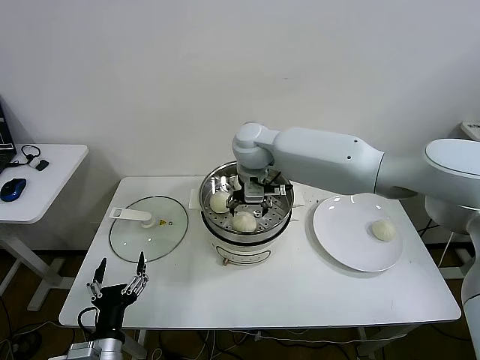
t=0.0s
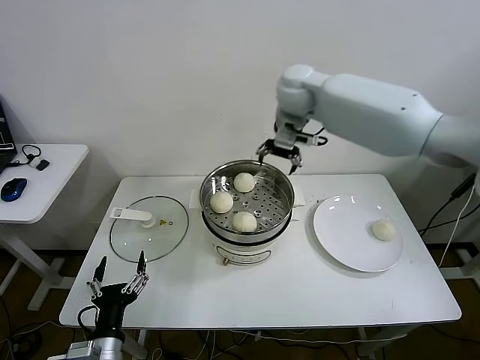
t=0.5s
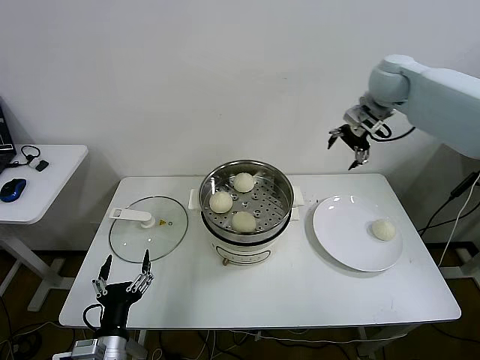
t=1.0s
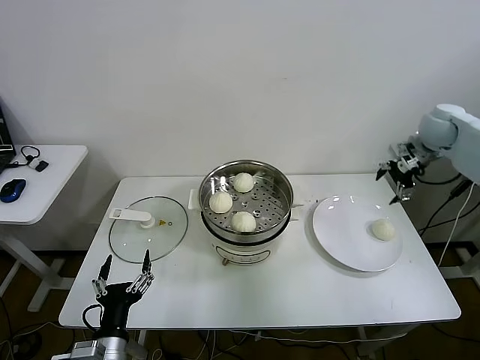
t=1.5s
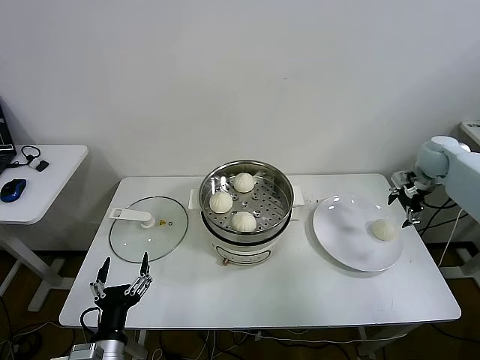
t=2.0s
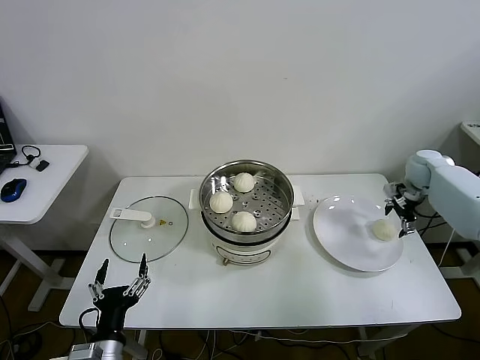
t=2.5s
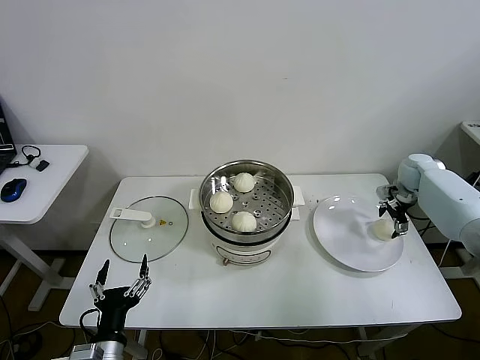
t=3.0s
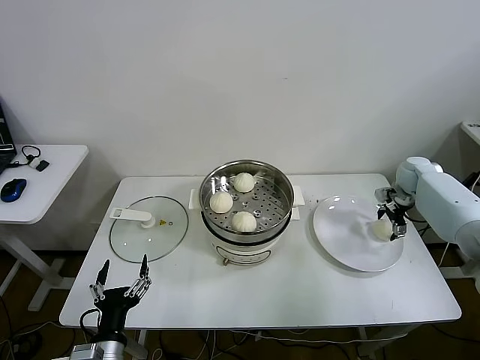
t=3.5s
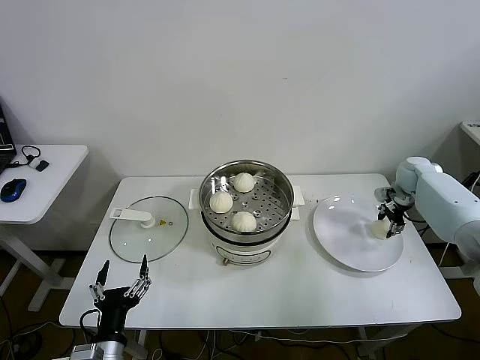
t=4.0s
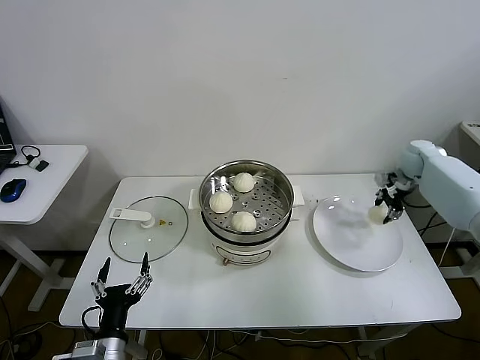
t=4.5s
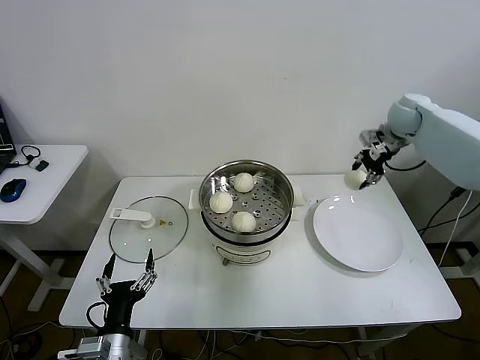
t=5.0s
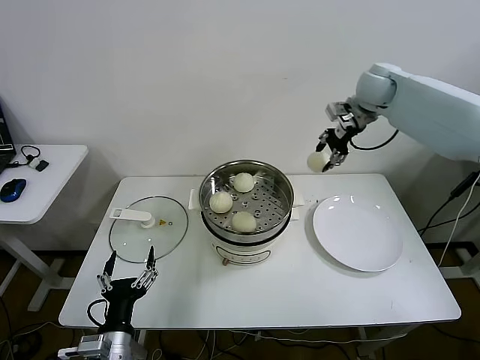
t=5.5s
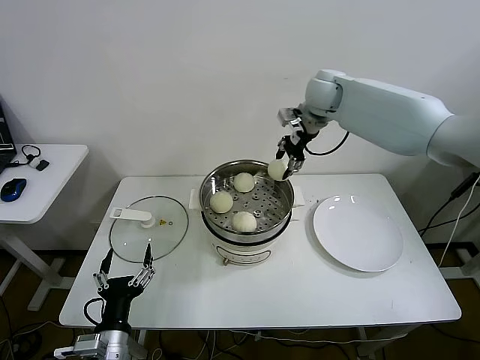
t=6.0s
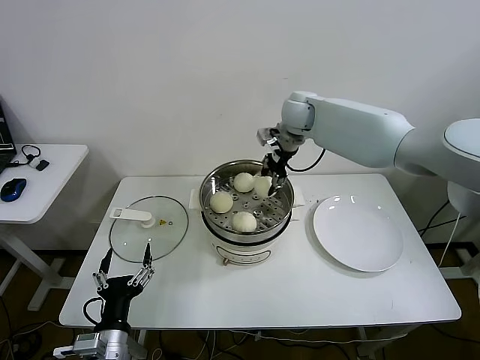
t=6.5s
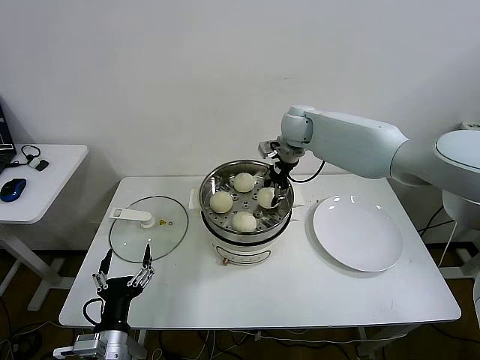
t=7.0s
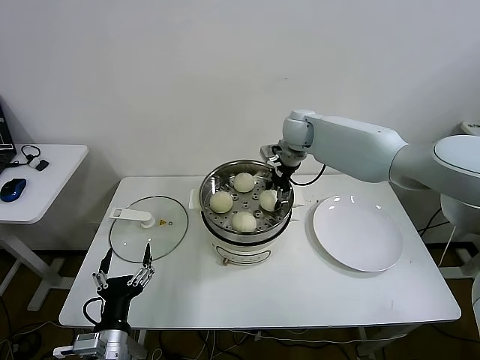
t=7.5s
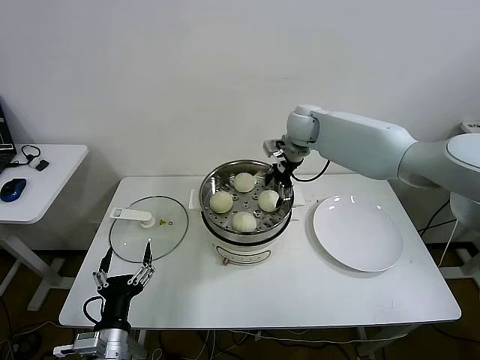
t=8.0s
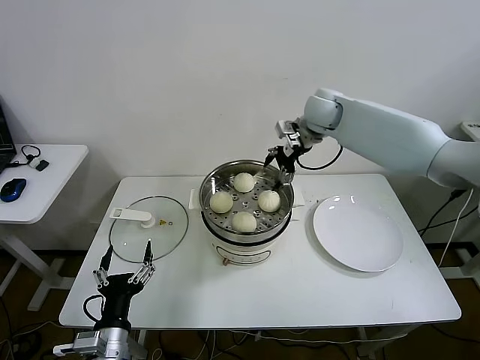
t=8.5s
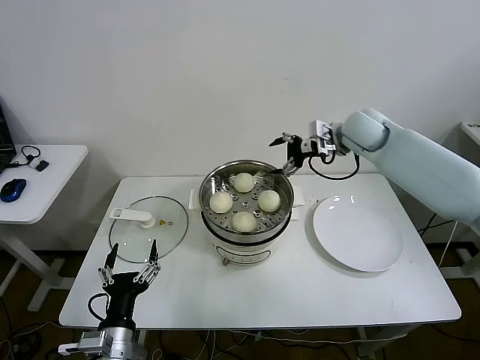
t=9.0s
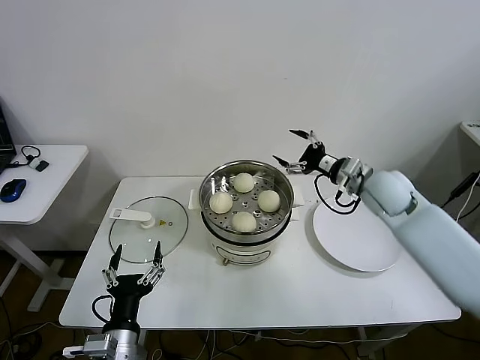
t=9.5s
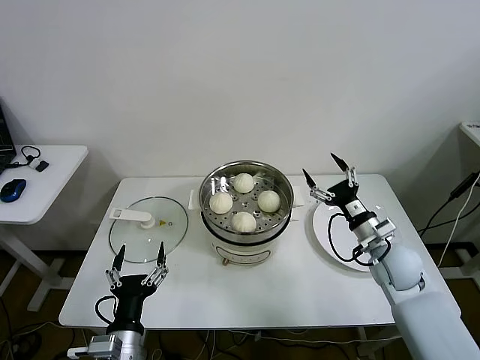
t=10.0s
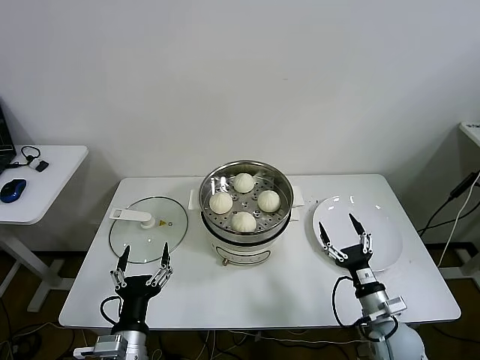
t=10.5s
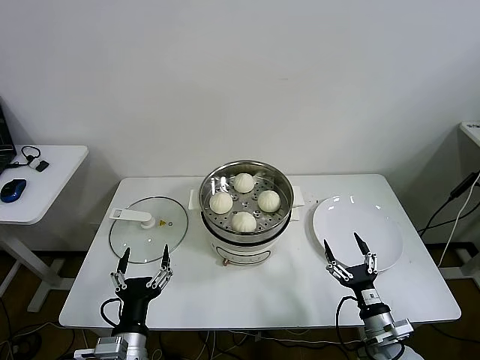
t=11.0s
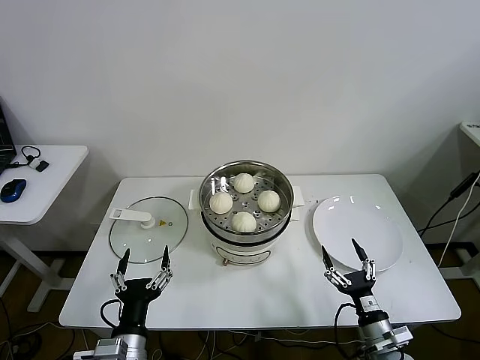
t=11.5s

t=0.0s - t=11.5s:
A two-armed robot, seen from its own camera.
Step, t=0.0s - t=3.5s: Grasp the baozi in the plate with right gripper.
Step, t=4.0s - t=8.0s: Place the baozi on the steamer with right gripper.
t=0.0s - t=2.0s: The right gripper travels to the right by roughly 50 cm.
t=2.0s - t=4.0s: The right gripper travels downward by roughly 10 cm, and closes up.
t=4.0s - t=6.0s: The right gripper goes approximately 35 cm to the left and upward.
t=6.0s - t=7.5s: The right gripper is displaced downward by roughly 10 cm.
t=7.5s - t=9.5s: The right gripper travels backward and to the right by some 20 cm, and opens up.
t=9.5s - t=11.5s: The right gripper heads backward and downward, covering about 40 cm.

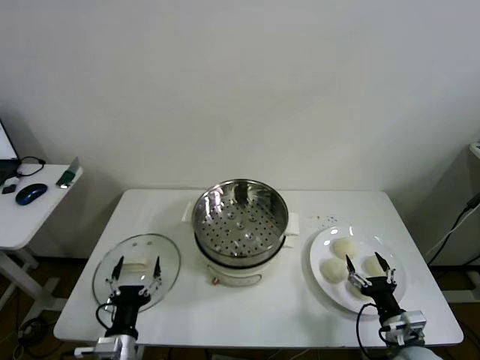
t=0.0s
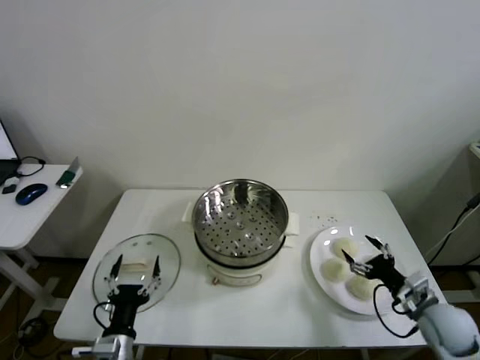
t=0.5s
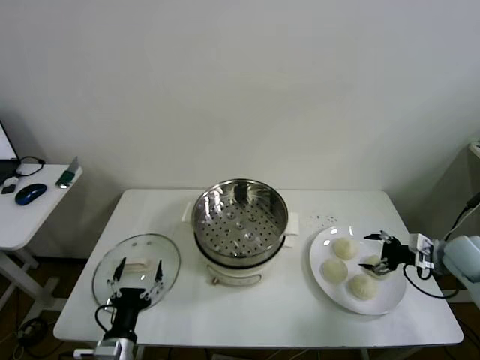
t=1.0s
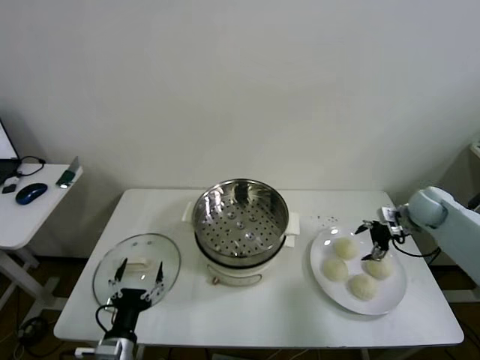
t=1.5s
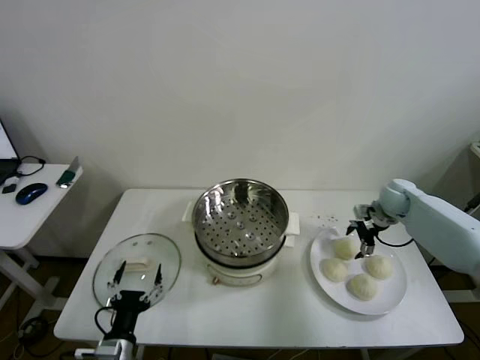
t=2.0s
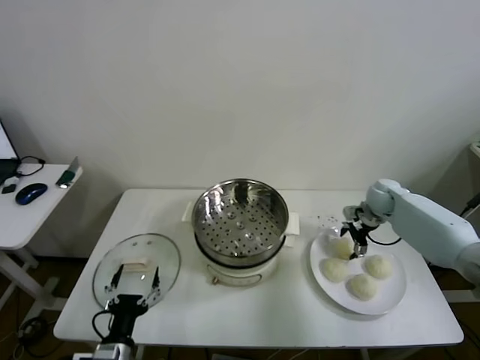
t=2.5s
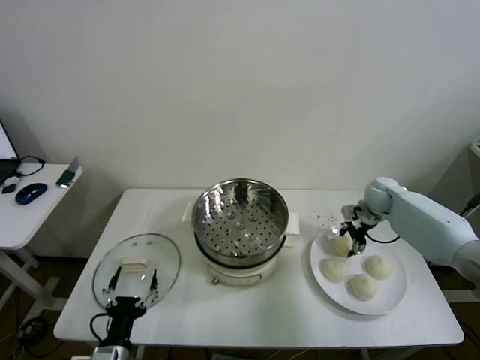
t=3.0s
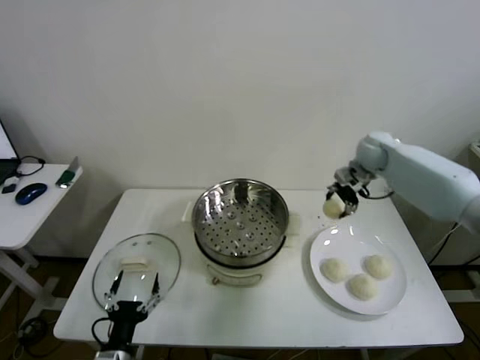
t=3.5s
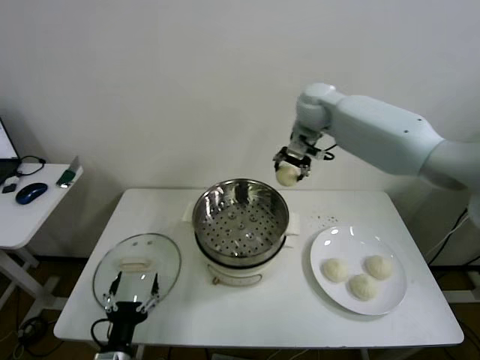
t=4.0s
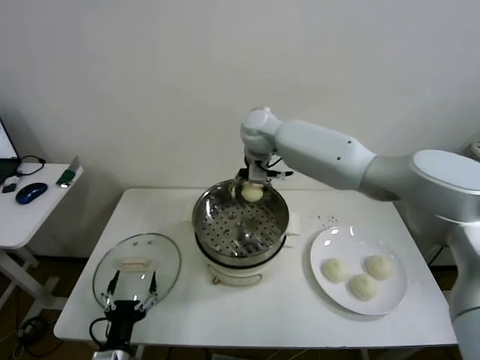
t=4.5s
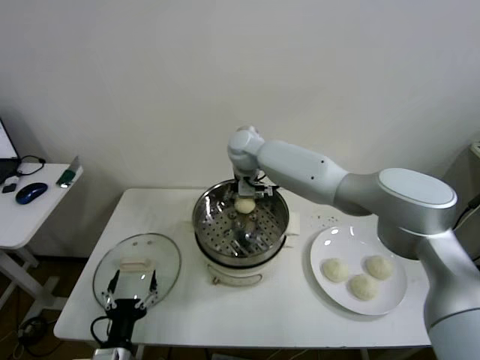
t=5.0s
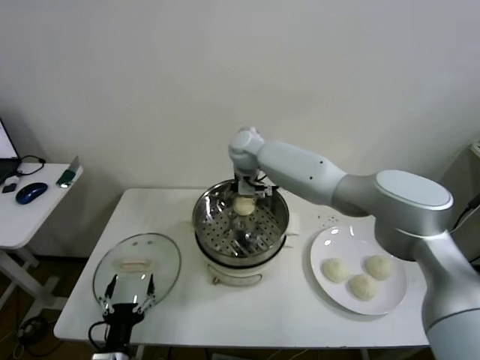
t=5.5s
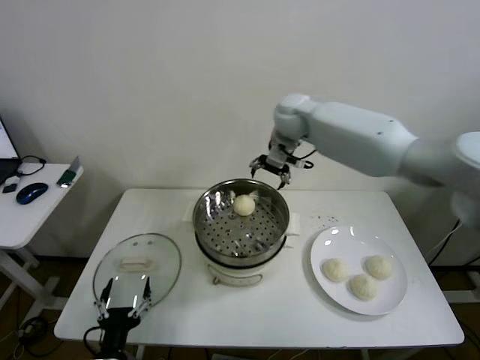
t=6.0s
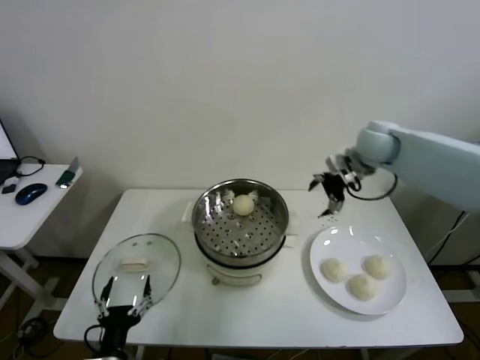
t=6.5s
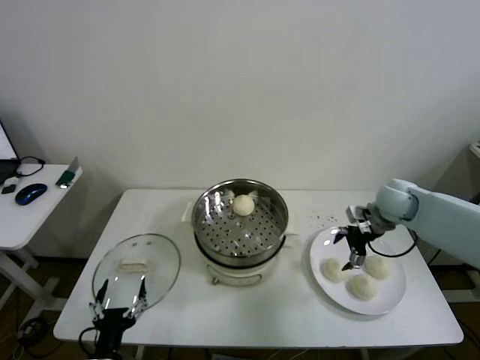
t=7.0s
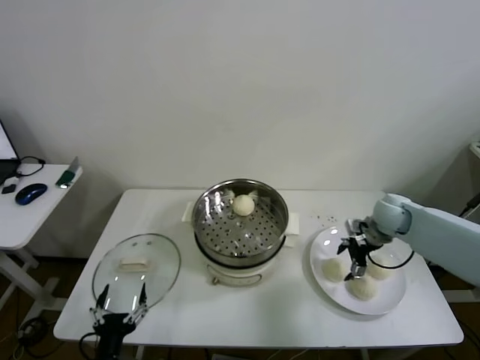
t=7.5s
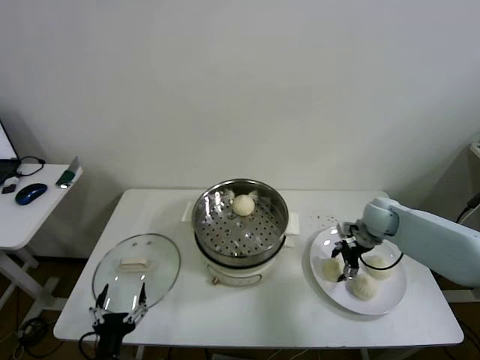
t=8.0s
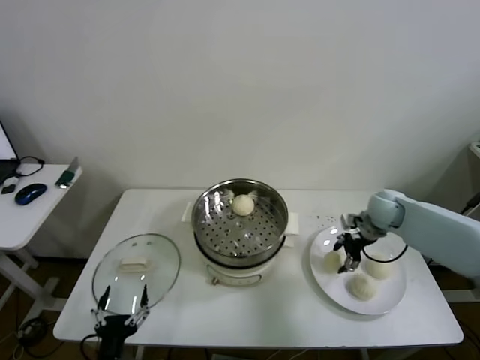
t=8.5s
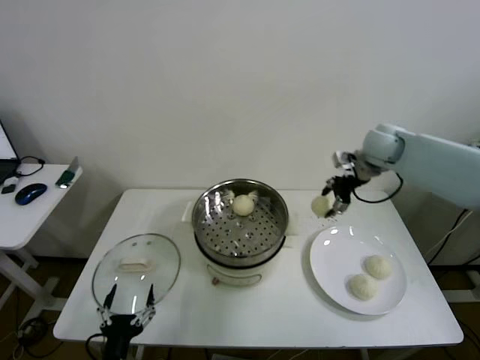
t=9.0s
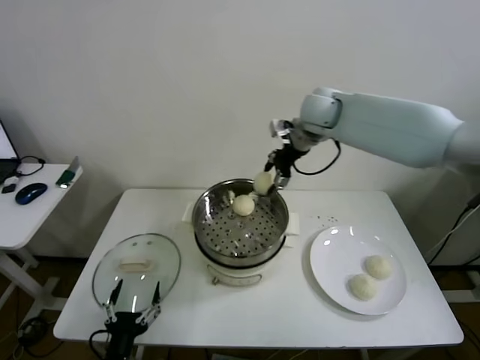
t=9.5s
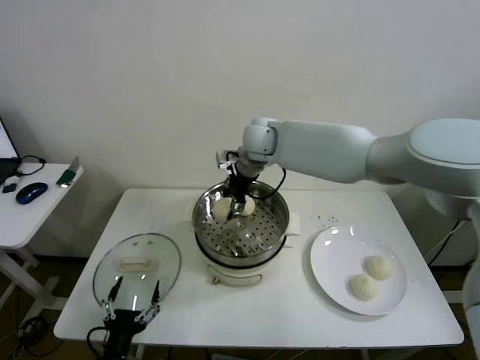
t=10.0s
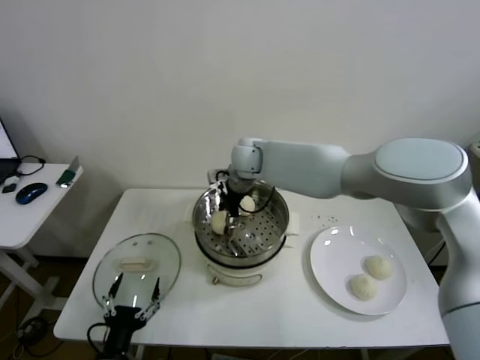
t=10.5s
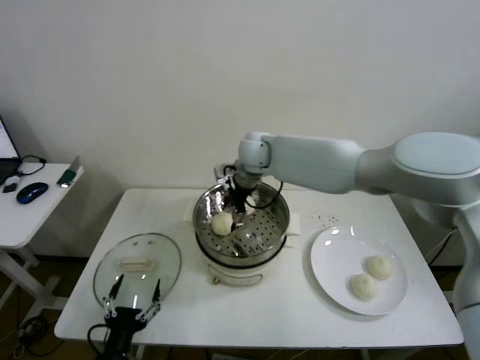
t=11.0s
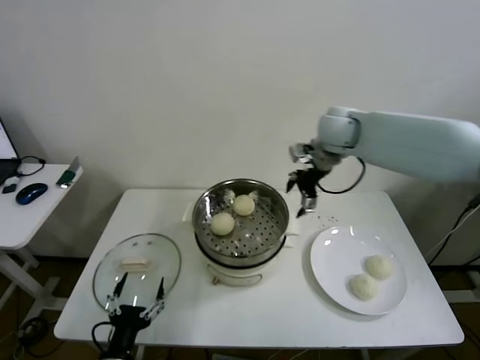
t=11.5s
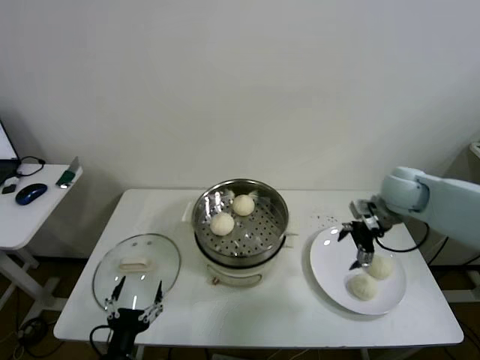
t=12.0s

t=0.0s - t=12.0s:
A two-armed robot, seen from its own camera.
Step, t=0.0s - t=2.5s: Grasp the baozi in the plate with right gripper.
Step, t=3.5s - t=5.0s: Place the baozi on the steamer with right gripper.
Step, t=5.5s - t=8.0s: Grasp the baozi in the plate with right gripper.
Step, t=8.5s - t=10.5s: Place the baozi on the steamer with right gripper.
t=2.0s - t=4.0s: The right gripper heads to the left and upward, covering approximately 35 cm, and closes up.
t=4.0s - t=6.0s: The right gripper goes to the left and returns, roughly 15 cm each way, and opens up.
t=6.0s - t=8.0s: The right gripper moves downward, to the right and backward, roughly 35 cm, and closes.
t=8.0s - t=10.0s: The right gripper heads to the left and upward, covering about 35 cm, and closes up.
t=10.0s - t=12.0s: The right gripper travels to the right by some 30 cm, and opens.

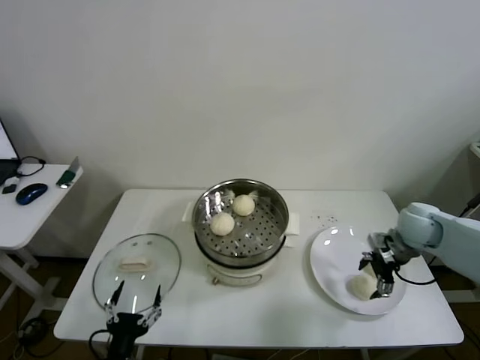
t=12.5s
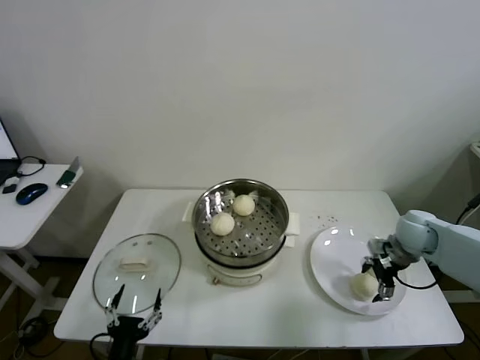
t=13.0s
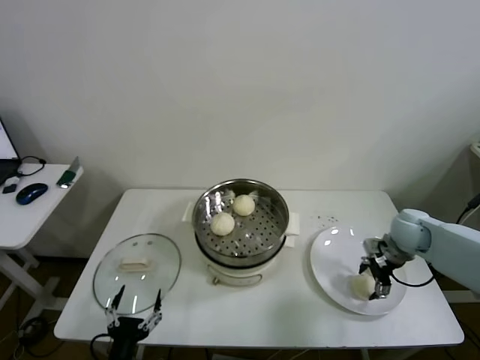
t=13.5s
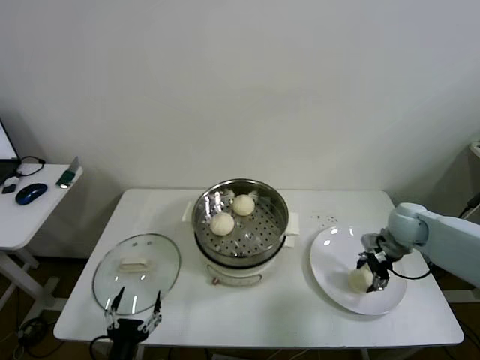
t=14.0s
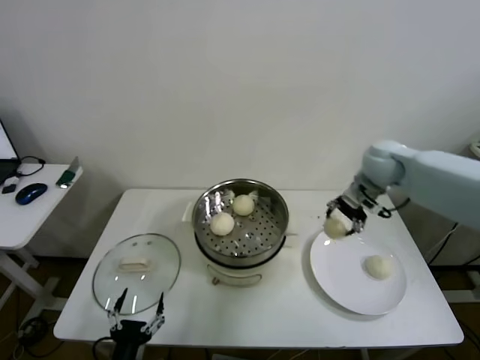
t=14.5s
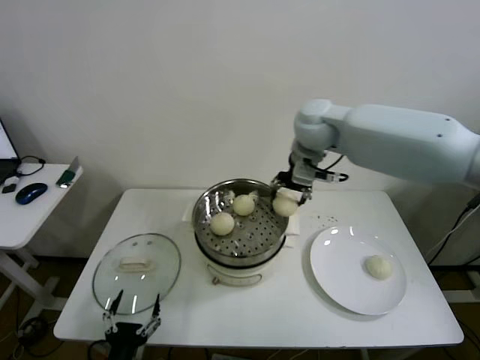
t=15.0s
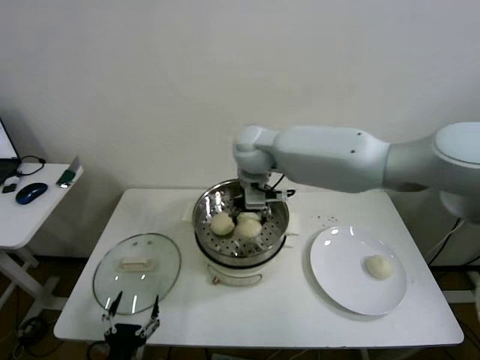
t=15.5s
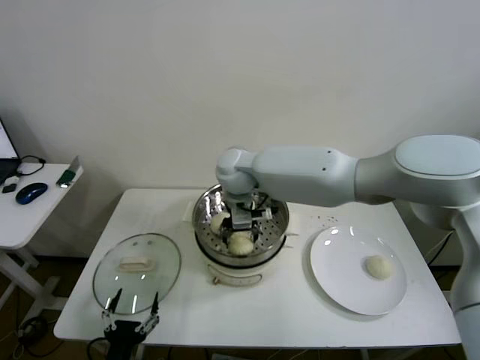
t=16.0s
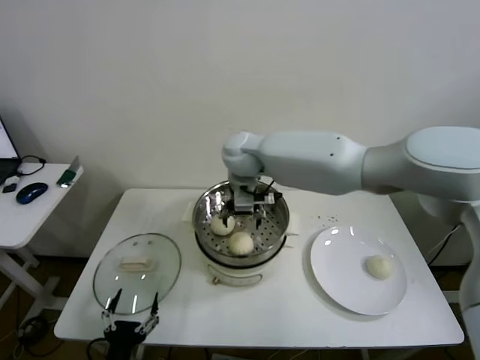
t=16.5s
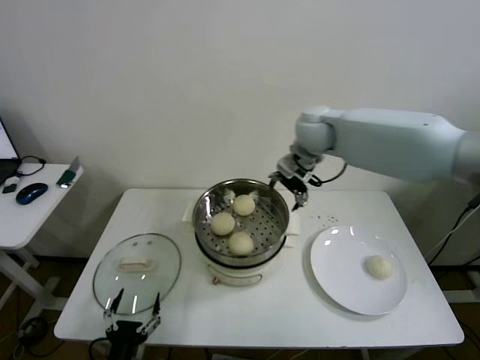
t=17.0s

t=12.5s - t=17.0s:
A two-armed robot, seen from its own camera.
Step, t=14.0s - t=16.0s: Place the baozi on the steamer with right gripper.
t=12.5s - t=14.5s: The right gripper goes approximately 15 cm upward, to the left and forward, and closes up.
t=14.5s - t=17.0s: The right gripper goes about 15 cm to the left and upward, and opens up.
